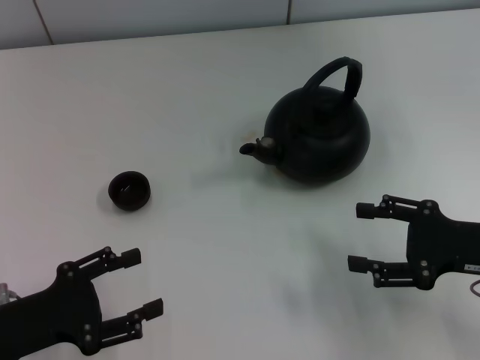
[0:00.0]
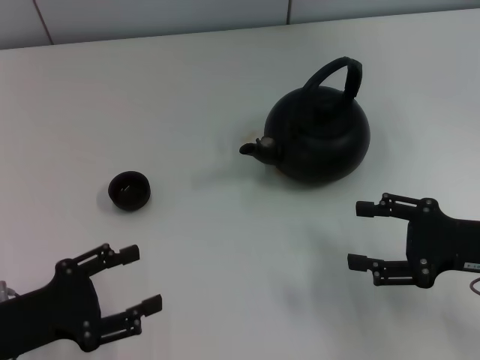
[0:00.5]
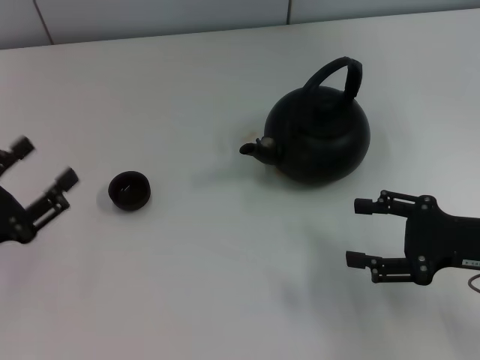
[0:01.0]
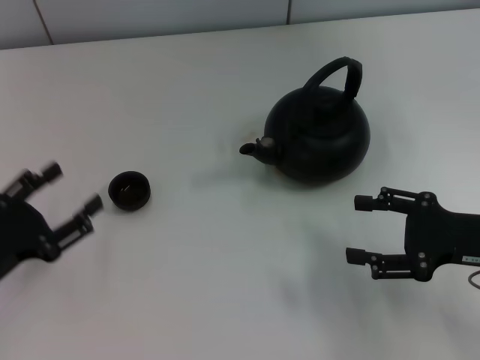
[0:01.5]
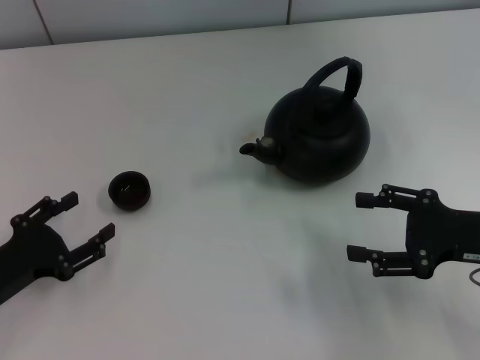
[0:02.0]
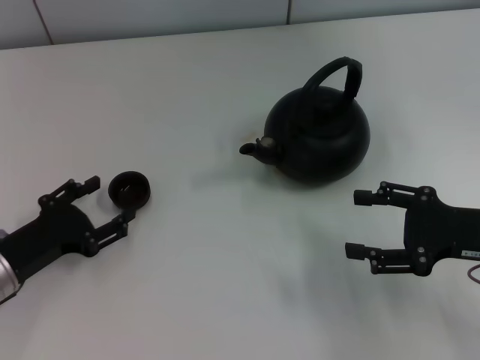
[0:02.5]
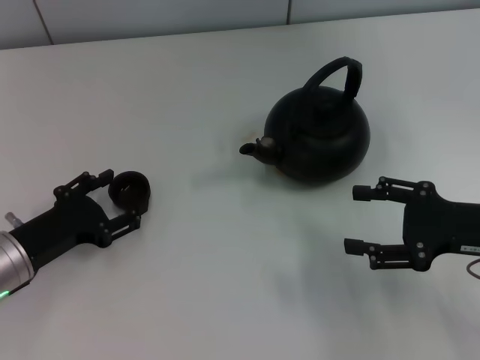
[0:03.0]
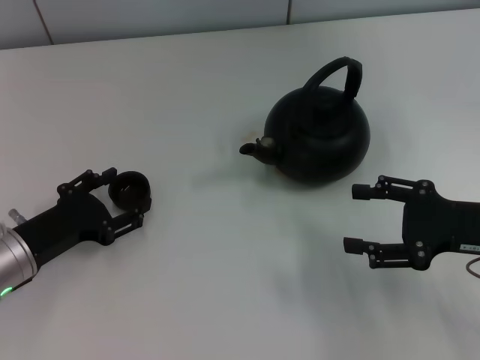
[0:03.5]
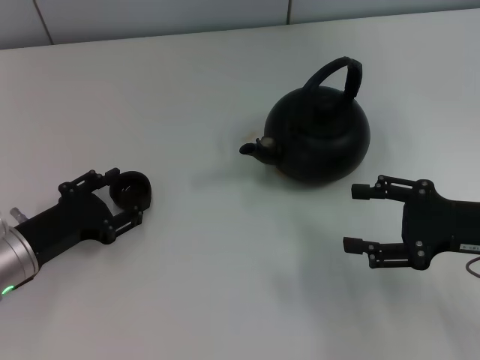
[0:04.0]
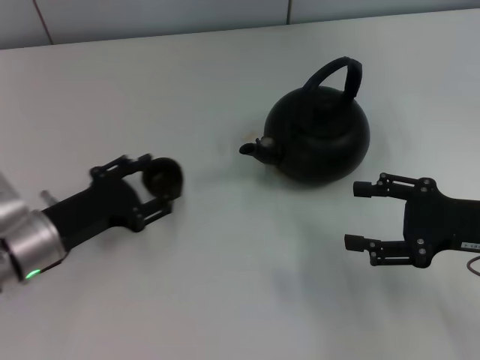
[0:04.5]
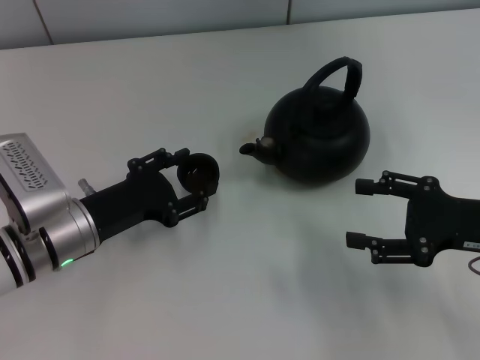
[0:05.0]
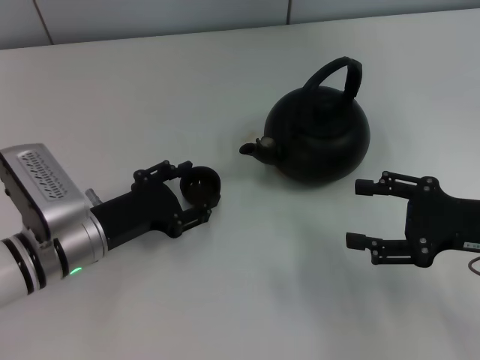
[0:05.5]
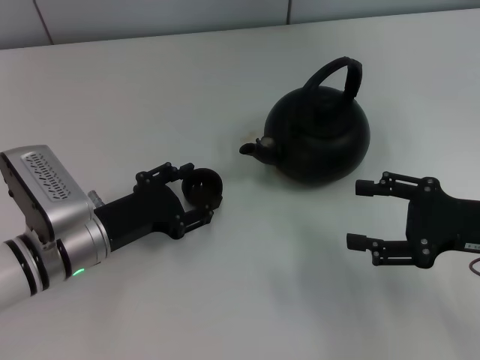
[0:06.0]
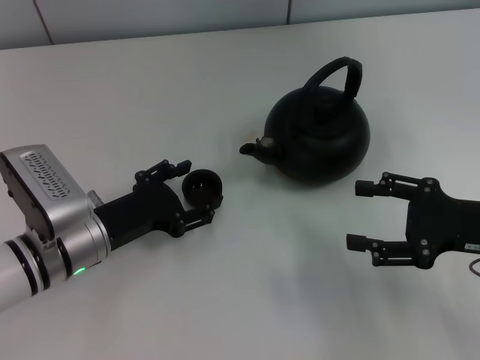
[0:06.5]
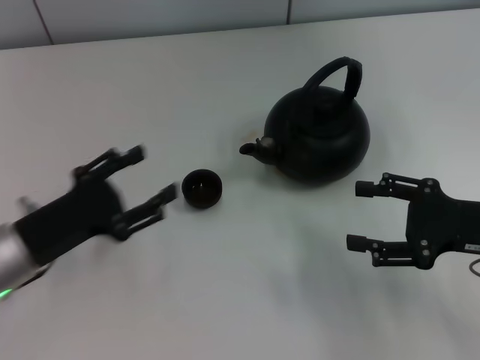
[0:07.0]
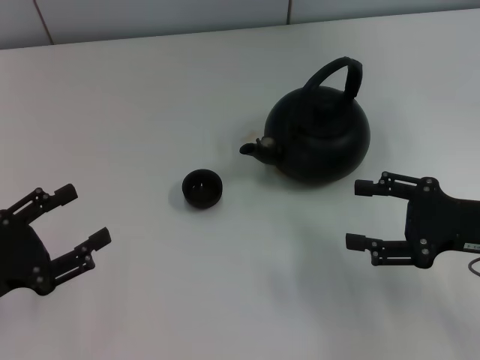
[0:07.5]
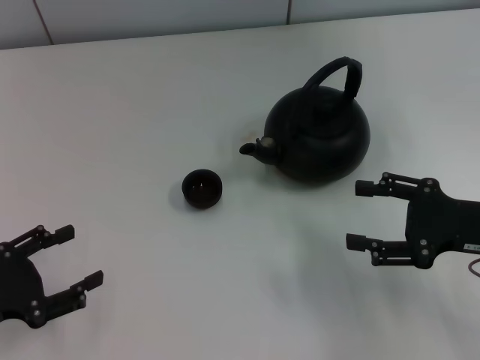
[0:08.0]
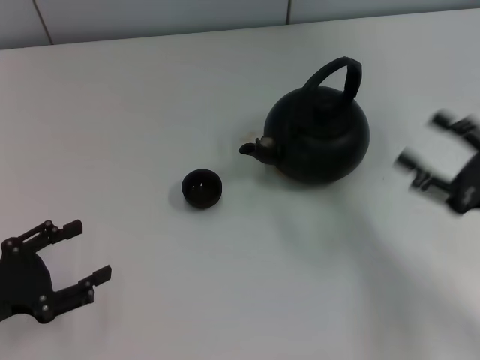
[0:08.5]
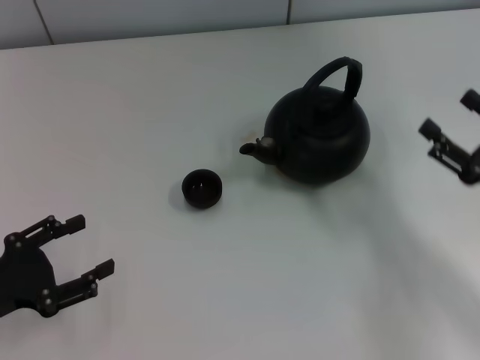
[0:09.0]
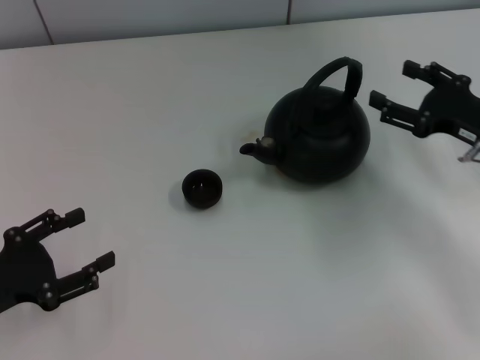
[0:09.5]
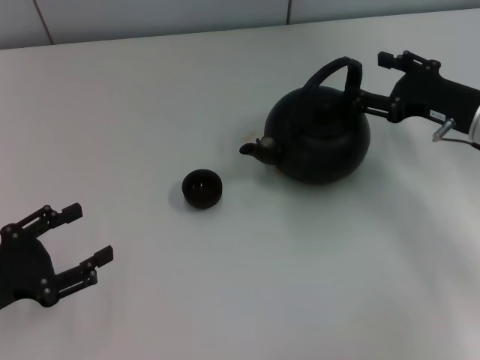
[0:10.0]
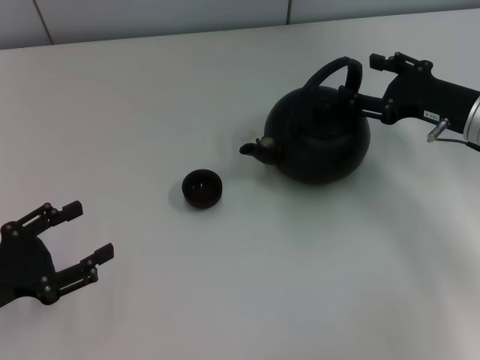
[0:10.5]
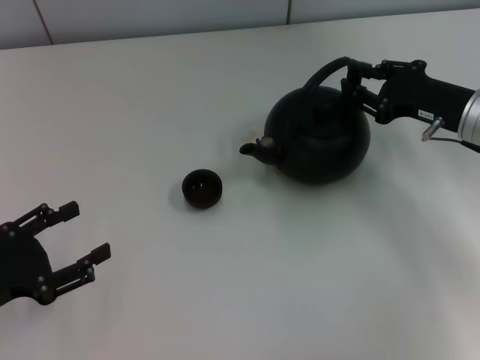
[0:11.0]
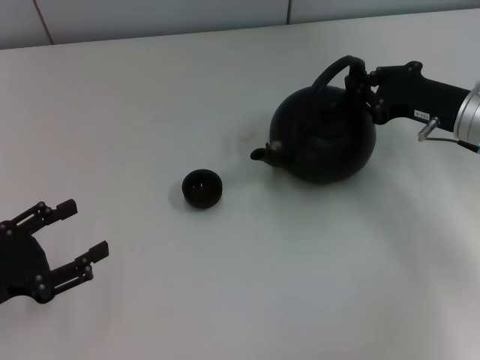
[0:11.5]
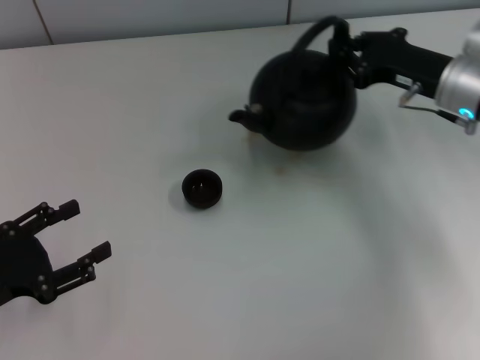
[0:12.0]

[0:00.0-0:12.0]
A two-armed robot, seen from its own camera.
Task of the whole recording: Grasp the handle of the teapot with one hand and pour tea into the teacup.
Step, 0:00.0 to 0:04.0: Pick up the teacup with the left gripper.
Step, 0:04.5 to 0:06.5: Place the teacup in the center of view with the left gripper.
Step, 0:07.0 to 0:12.0: Pick up the teapot with the right gripper.
0:02.0 to 0:04.0: The left gripper moves approximately 5 cm.
0:04.0 to 0:06.0: The left gripper is displaced to the right by roughly 5 cm.
0:06.0 to 0:08.0: The left gripper goes about 15 cm to the left and backward.
0:08.0 to 0:10.0: The right gripper moves forward, roughly 10 cm.
0:10.0 to 0:12.0: The right gripper moves about 5 cm, and closes its fingers.

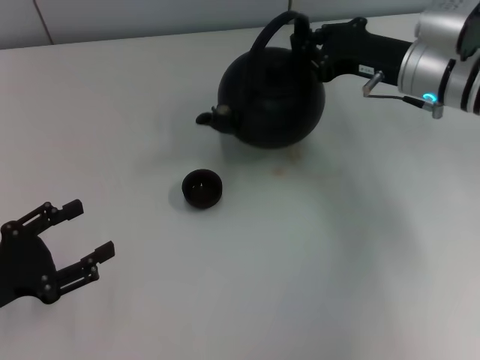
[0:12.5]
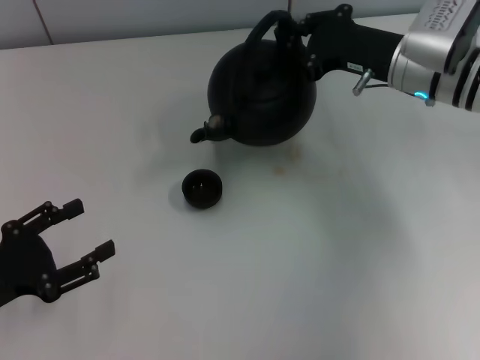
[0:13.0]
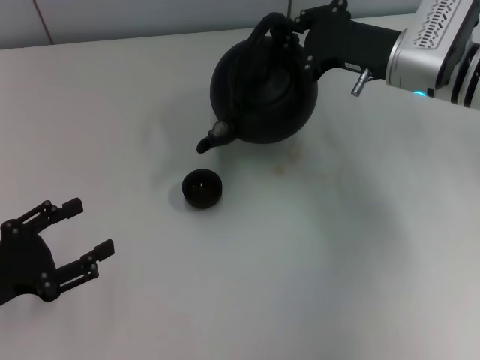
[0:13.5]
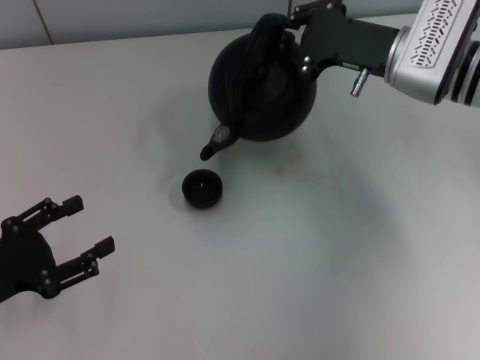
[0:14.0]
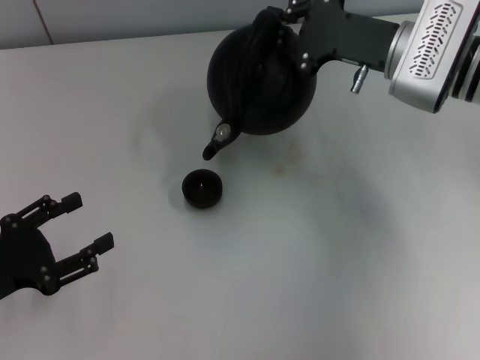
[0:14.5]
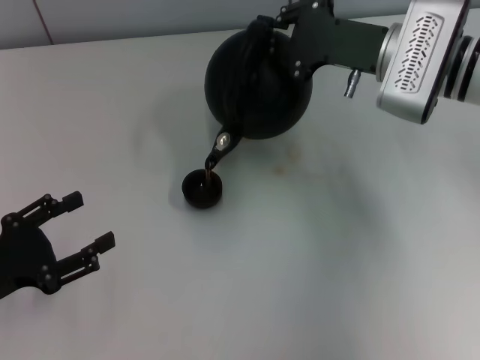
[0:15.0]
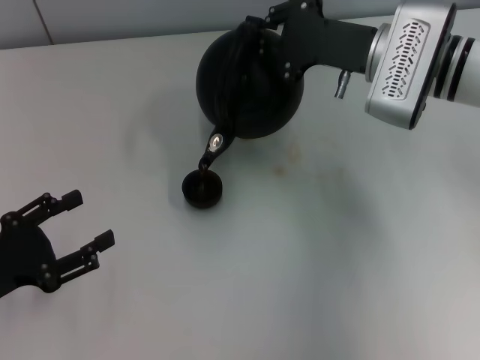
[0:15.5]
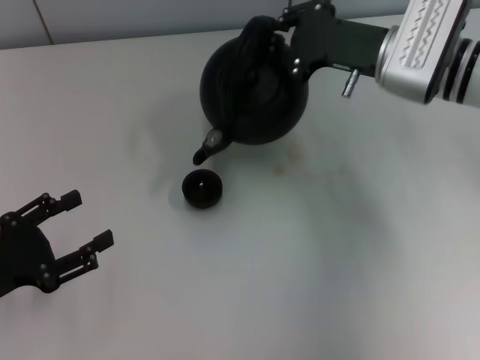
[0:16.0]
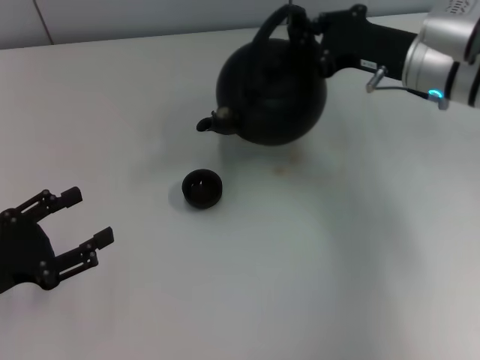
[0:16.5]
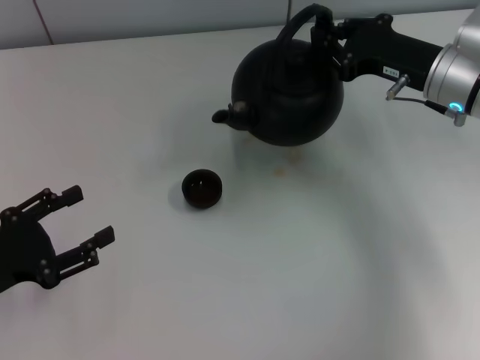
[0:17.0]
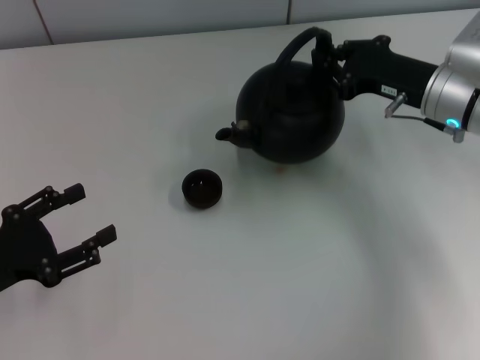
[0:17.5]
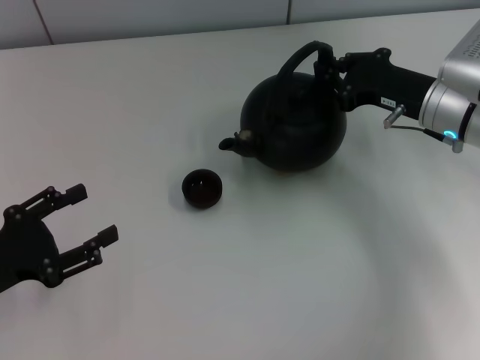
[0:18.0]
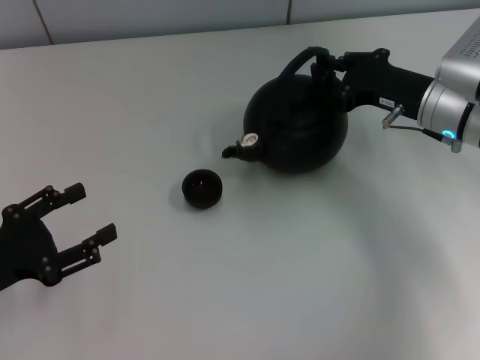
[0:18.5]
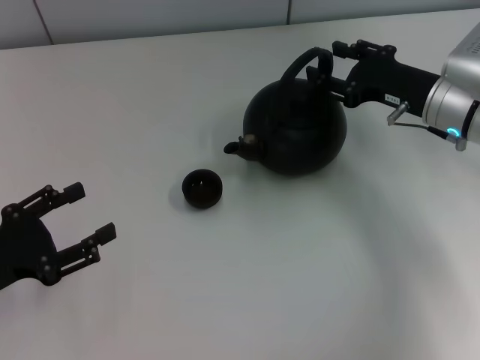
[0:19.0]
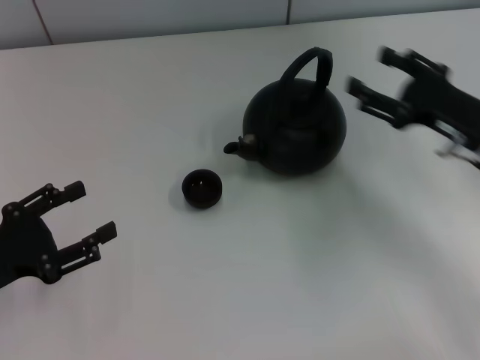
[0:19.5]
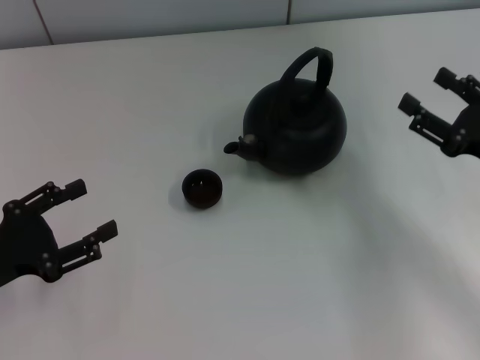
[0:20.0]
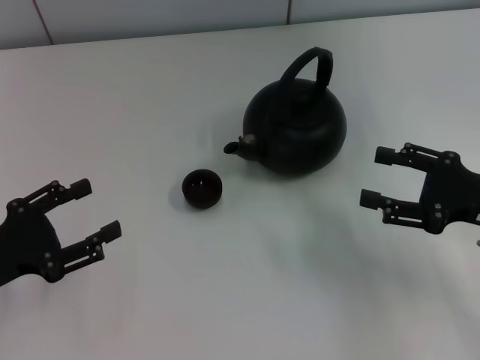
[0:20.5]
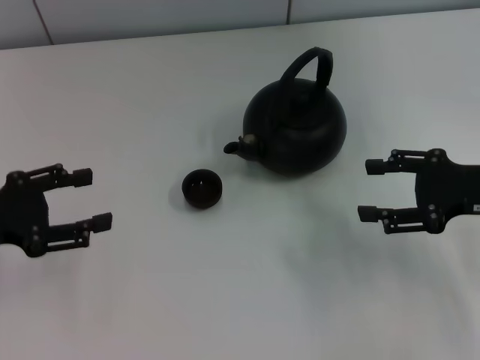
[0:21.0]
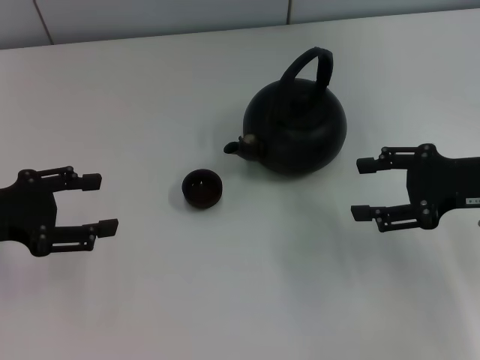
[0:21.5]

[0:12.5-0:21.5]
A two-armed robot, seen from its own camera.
Task of the whole recording: Grasp the handle of the teapot with one hand and pour tea into the teacup.
Step, 0:16.5 to 0:19.5: Put down the teapot with the right gripper.
0:17.0 to 0:19.5: The right gripper heads backward, covering about 10 cm, and opens up.
0:19.5 to 0:21.5: The left gripper moves forward and upward, some 10 cm.

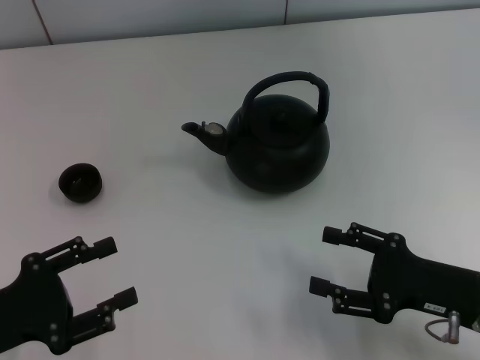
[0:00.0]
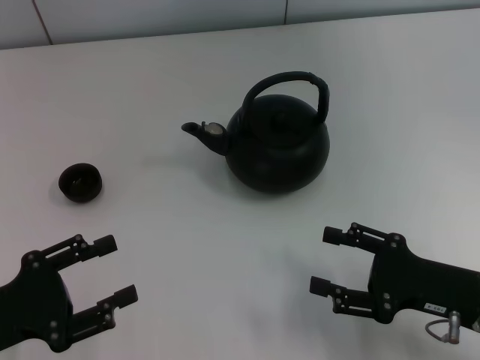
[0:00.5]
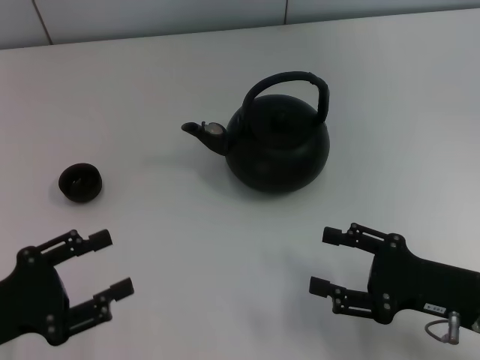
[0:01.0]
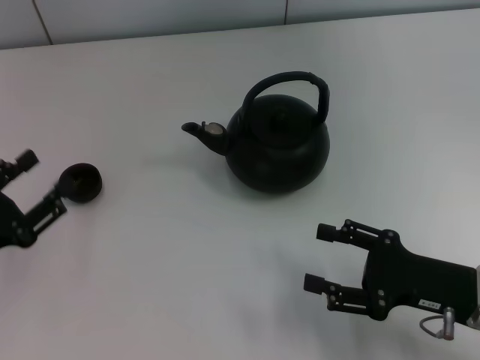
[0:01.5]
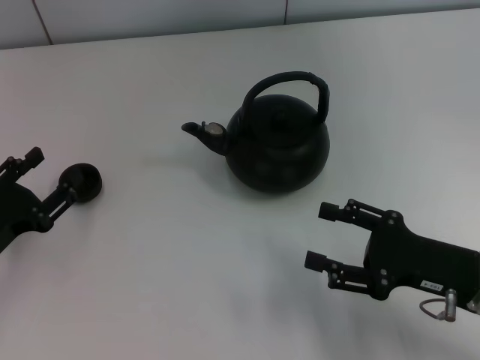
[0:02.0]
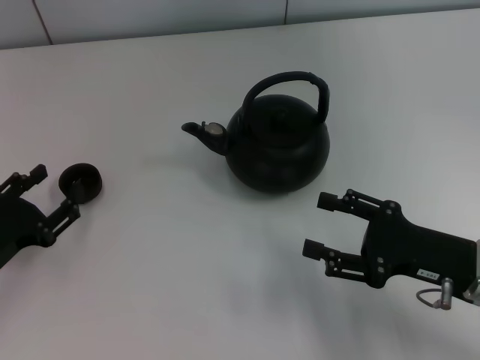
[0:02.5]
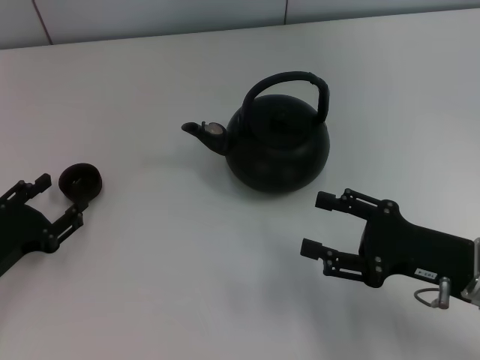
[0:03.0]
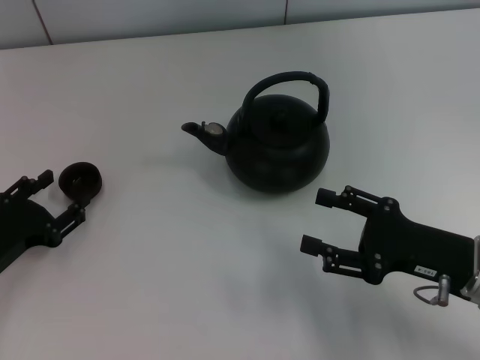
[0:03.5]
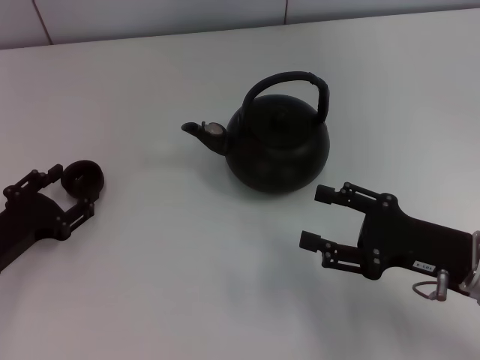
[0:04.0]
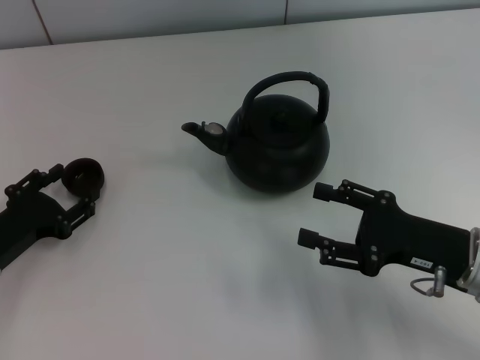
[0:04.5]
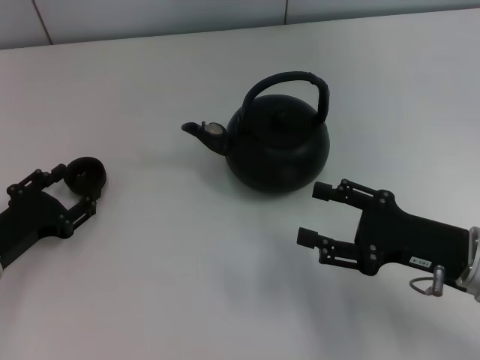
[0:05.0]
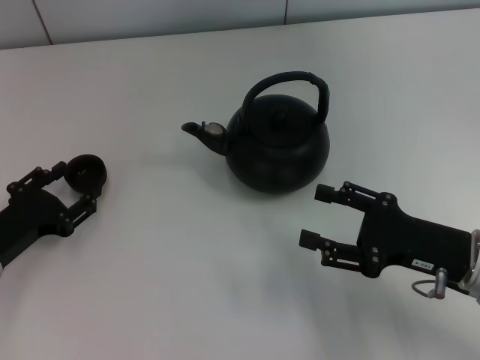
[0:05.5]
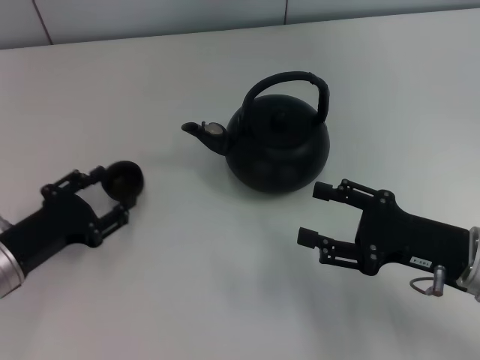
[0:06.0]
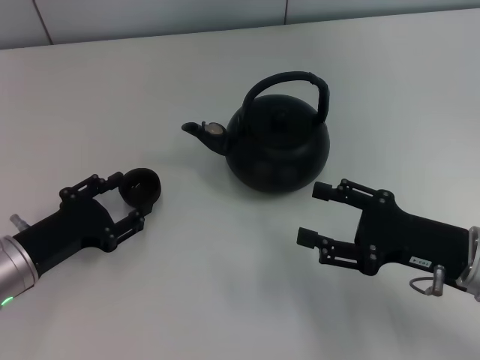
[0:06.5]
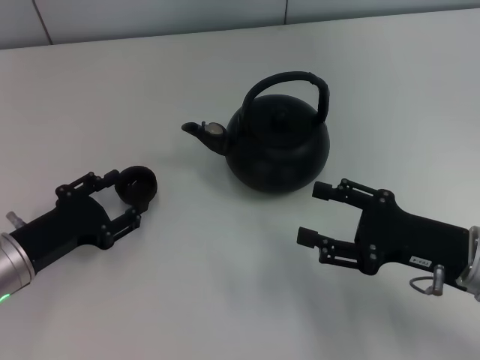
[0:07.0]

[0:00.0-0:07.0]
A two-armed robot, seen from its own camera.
Task of the whole recording: Grasp the handle of the teapot with one hand and pour tea into the teacup.
Step, 0:00.0 to 0:05.5: Pick up the teacup with the left gripper.
0:00.0 to 0:02.0: The left gripper goes about 5 cm forward.
0:02.0 to 0:07.0: The grippers stay close to where they were, moving slightly.
